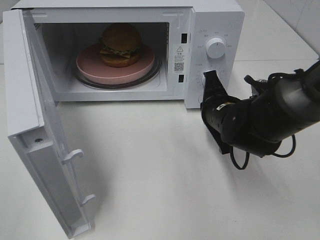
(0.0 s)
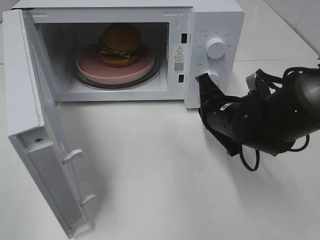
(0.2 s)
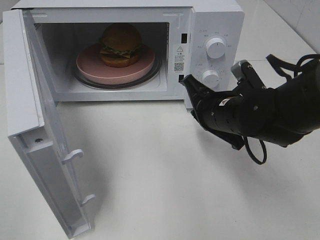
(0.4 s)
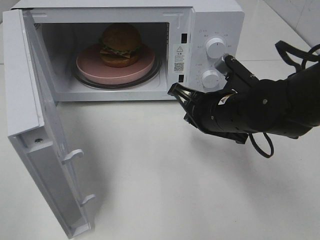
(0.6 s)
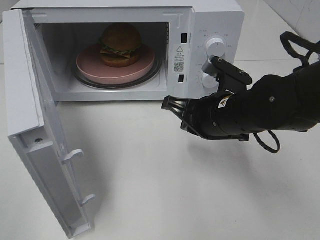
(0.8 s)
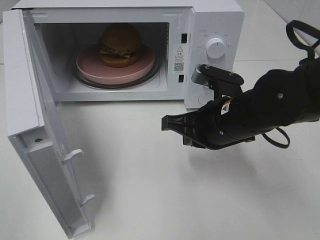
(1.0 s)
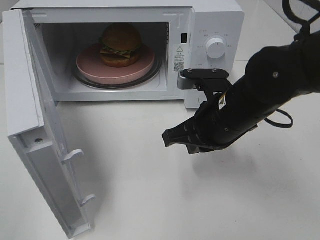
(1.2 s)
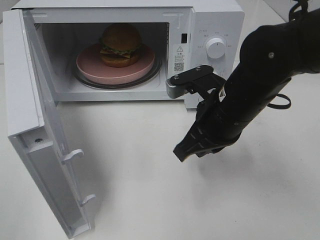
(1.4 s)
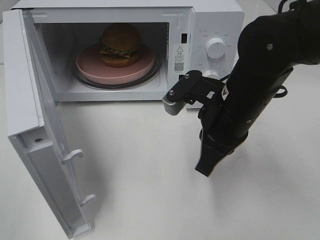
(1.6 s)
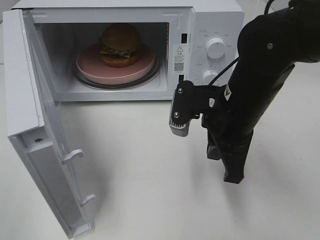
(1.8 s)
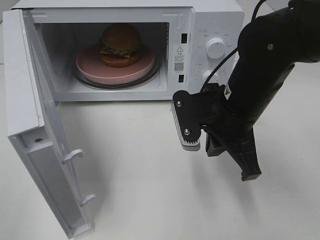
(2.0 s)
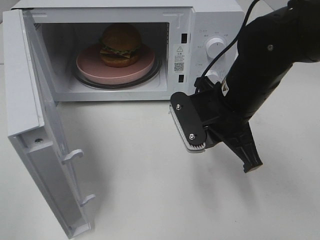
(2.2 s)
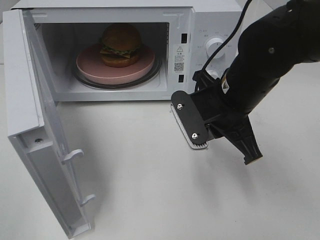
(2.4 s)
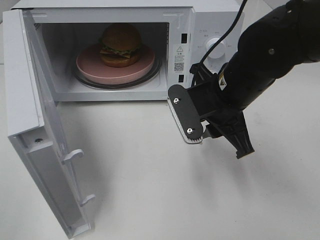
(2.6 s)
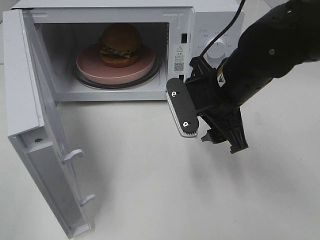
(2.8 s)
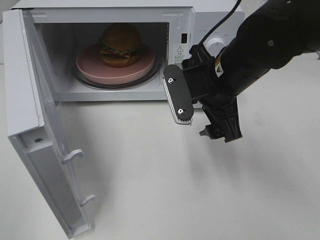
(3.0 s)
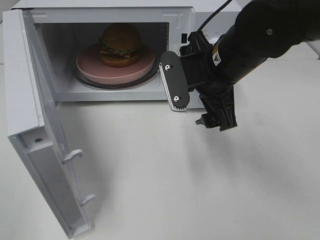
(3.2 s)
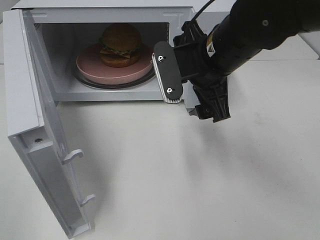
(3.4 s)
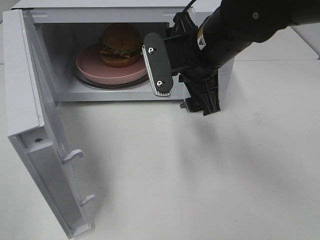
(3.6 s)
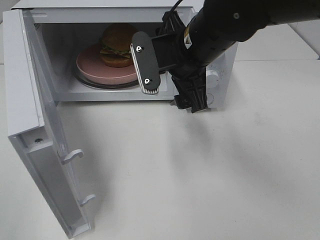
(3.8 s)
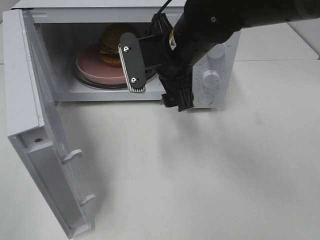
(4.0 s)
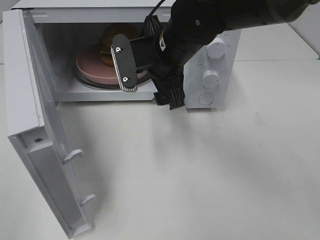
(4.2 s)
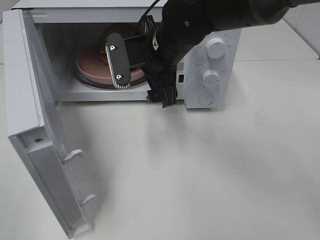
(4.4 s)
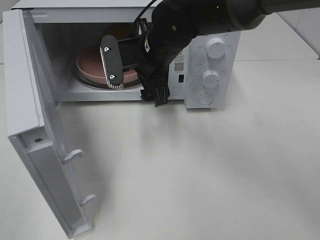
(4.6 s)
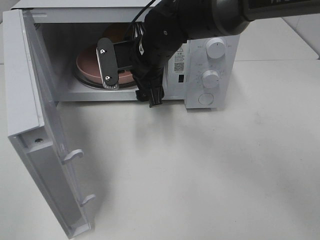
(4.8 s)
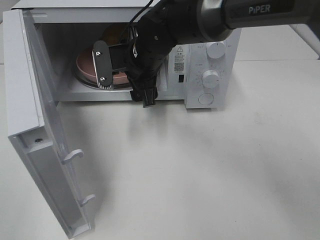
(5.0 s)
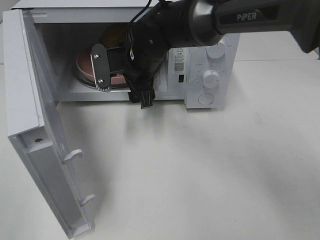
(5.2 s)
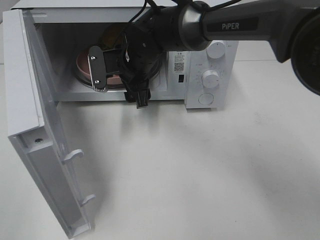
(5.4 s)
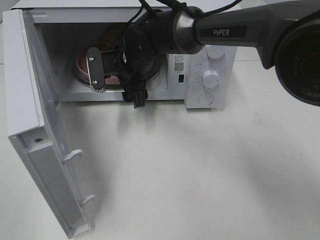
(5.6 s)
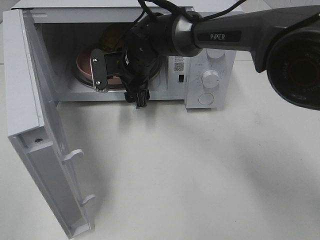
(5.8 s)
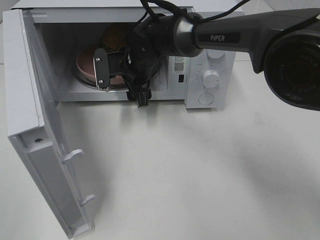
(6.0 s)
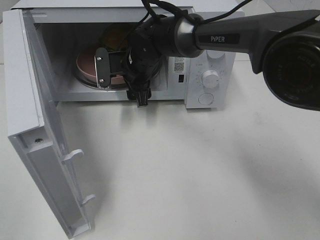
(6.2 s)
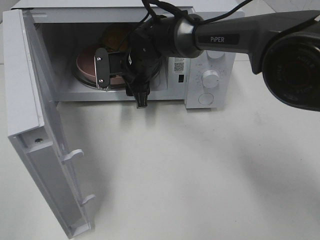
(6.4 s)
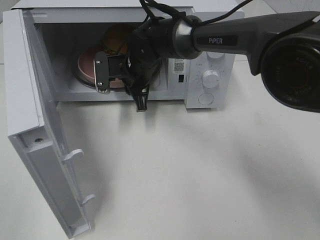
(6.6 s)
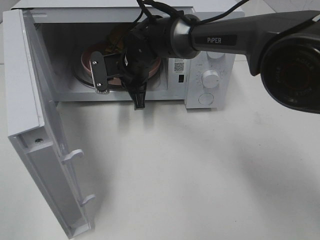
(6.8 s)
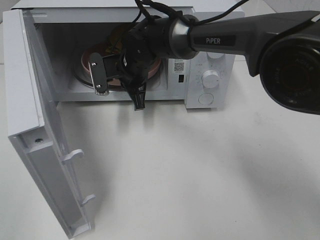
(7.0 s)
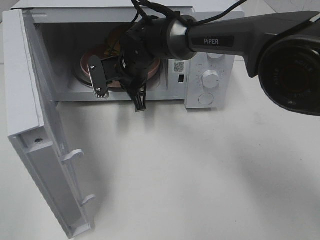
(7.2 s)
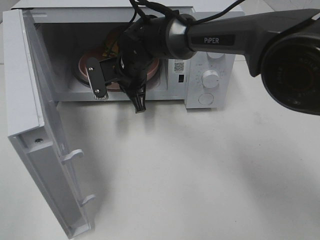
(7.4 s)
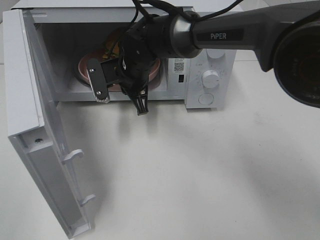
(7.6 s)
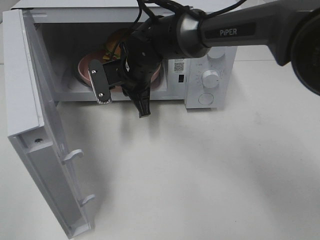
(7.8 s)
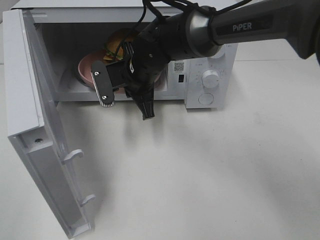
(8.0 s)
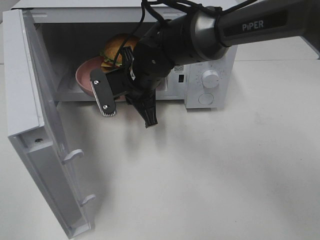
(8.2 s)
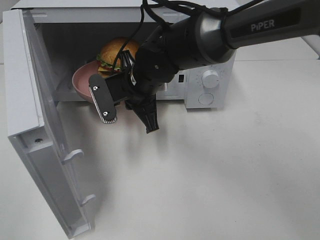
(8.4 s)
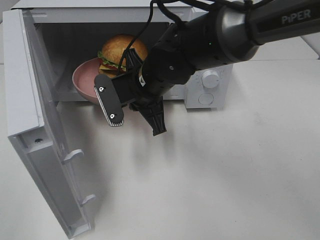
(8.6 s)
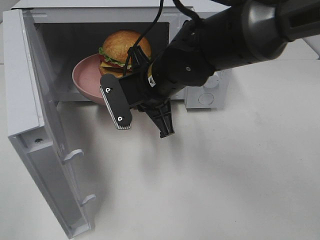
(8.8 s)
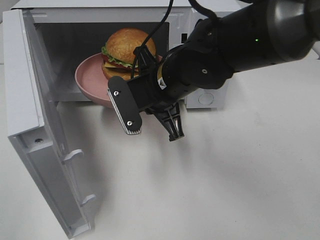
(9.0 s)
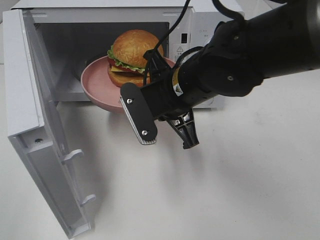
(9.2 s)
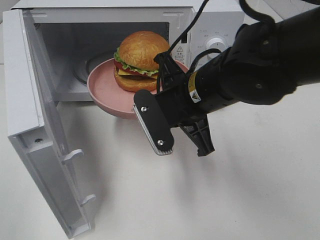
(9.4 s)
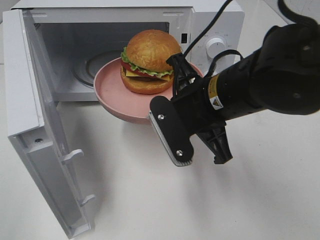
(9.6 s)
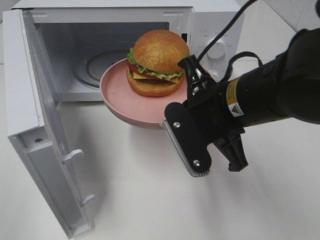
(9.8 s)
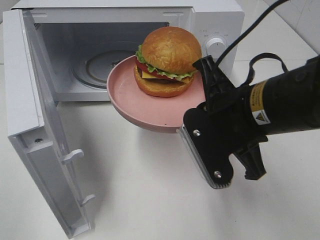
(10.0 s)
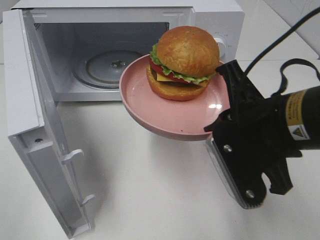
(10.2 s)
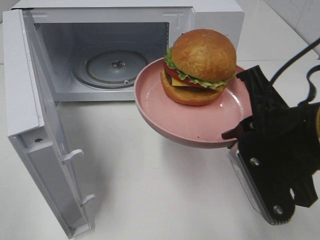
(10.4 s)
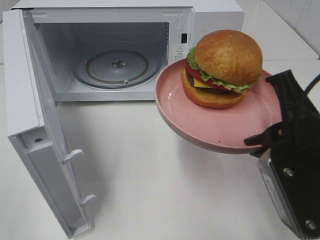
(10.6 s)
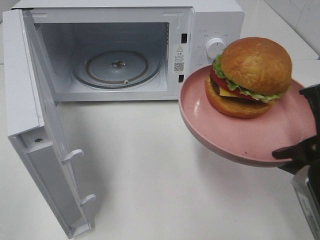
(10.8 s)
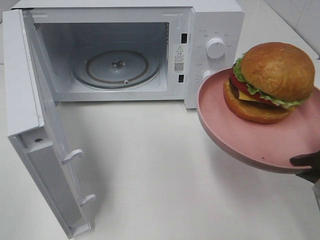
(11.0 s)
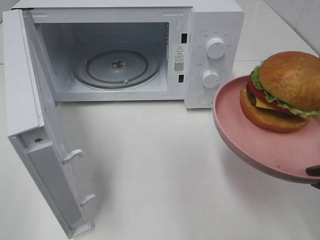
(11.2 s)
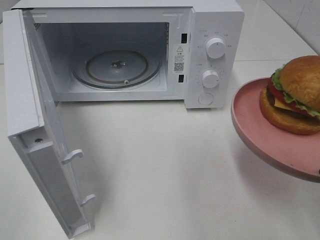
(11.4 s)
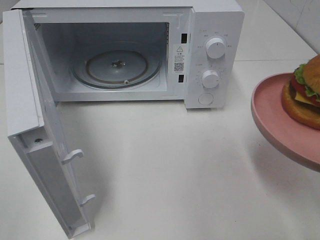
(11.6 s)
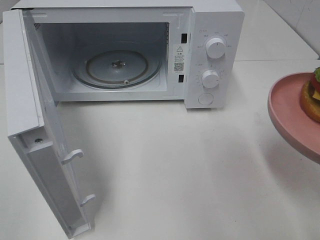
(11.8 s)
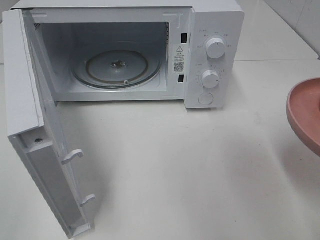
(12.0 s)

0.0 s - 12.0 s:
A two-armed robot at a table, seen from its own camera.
Task of the whole recording: Heat the burger.
Step, 0.0 s - 7.0 s: Right hand: grab the plate with the hamburger.
0.0 s - 1.6 s: The right gripper shifts roughly 10 cm upward and backward.
1.6 s - 3.0 s: The right gripper opens.
3.0 s - 4.4 s: The right gripper shifts some 10 cm to the left and forward.
4.4 s - 6.0 s: The right gripper heads forward and downward, covering about 10 cm.
6.0 s - 7.6 s: The right gripper closes.
7.6 s - 9.0 s: The right gripper heads backward and to the right, covering some 15 cm.
9.0 s - 10.4 s: The right gripper is displaced backward and to the right by roughly 20 cm.
10.4 s - 12.0 s: The right gripper moves to the right and backward, approximately 10 cm.

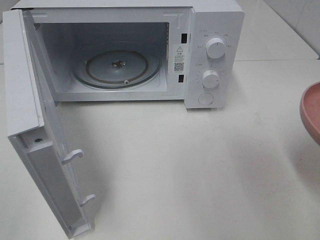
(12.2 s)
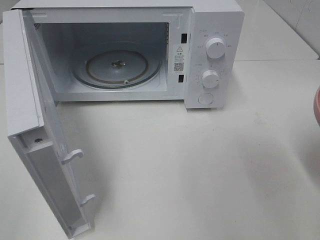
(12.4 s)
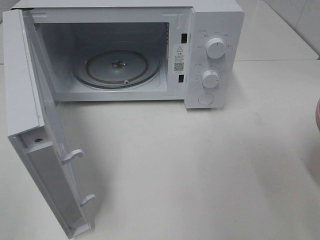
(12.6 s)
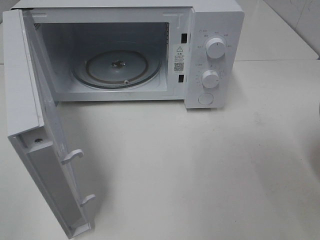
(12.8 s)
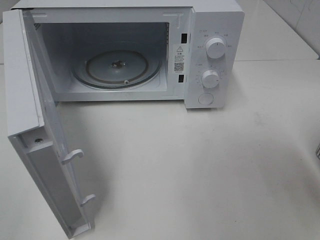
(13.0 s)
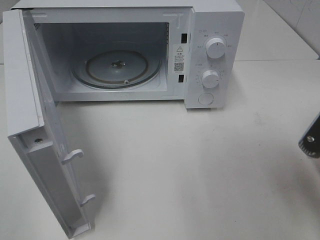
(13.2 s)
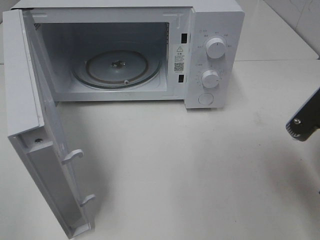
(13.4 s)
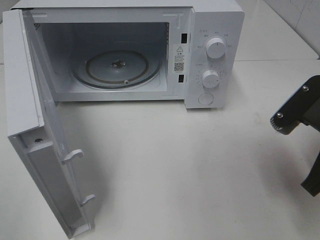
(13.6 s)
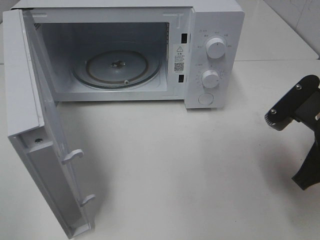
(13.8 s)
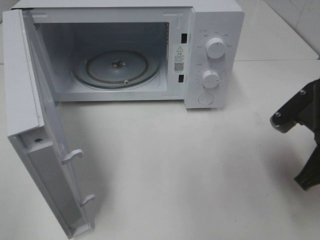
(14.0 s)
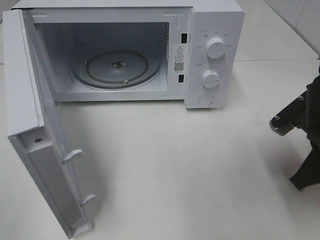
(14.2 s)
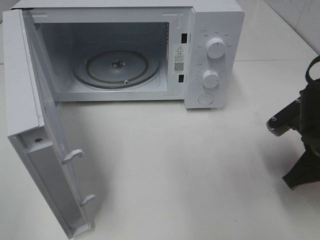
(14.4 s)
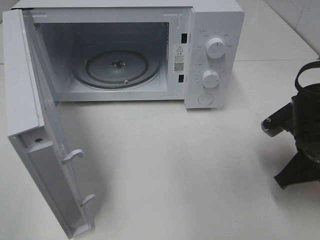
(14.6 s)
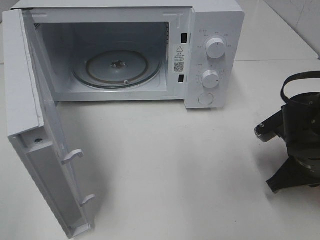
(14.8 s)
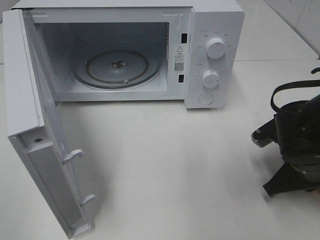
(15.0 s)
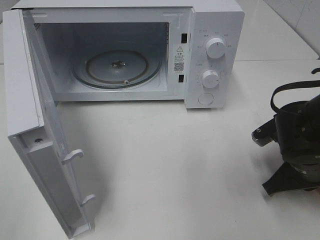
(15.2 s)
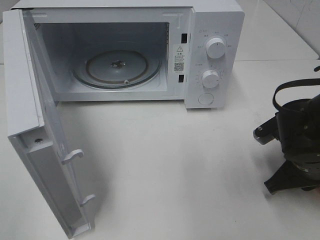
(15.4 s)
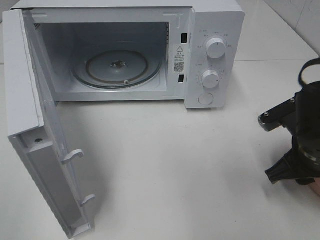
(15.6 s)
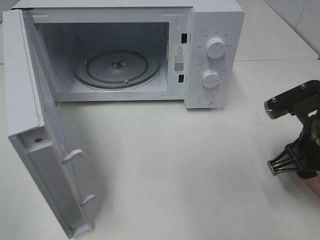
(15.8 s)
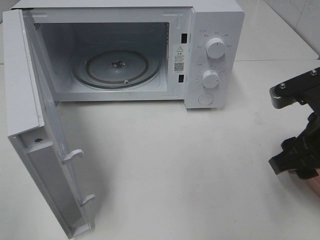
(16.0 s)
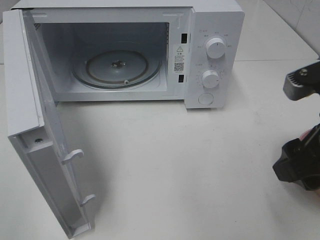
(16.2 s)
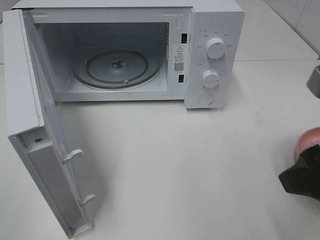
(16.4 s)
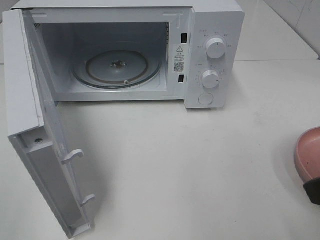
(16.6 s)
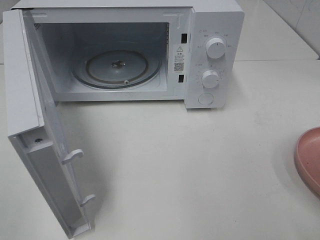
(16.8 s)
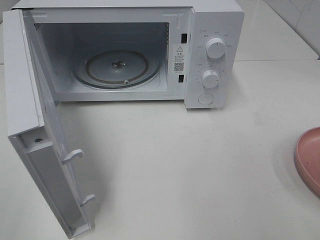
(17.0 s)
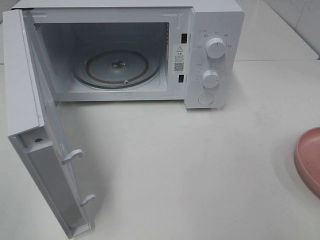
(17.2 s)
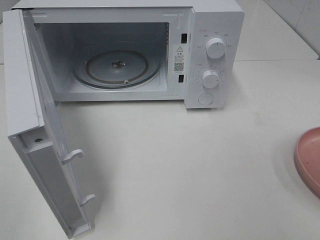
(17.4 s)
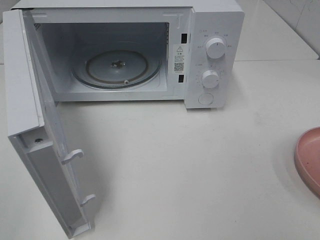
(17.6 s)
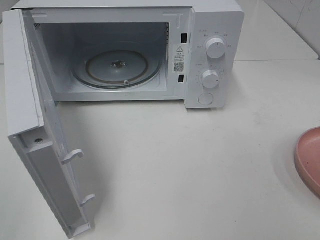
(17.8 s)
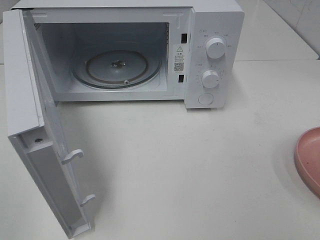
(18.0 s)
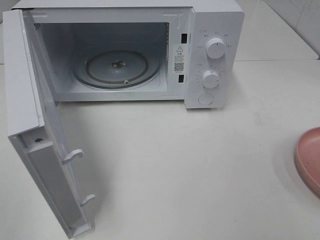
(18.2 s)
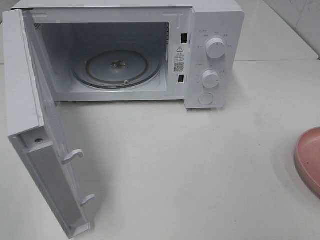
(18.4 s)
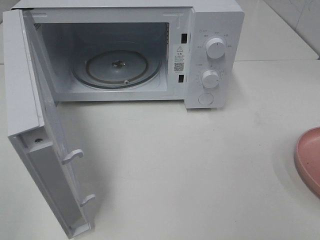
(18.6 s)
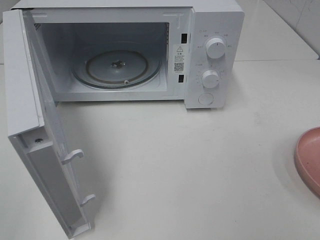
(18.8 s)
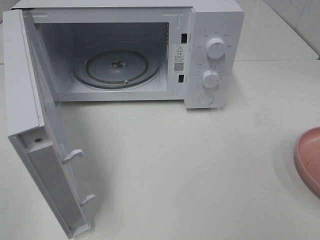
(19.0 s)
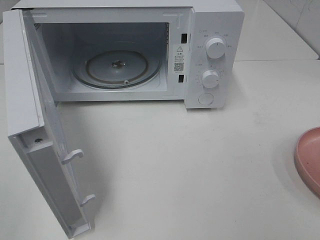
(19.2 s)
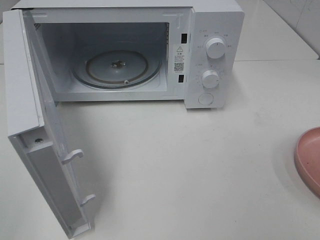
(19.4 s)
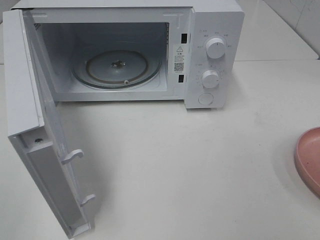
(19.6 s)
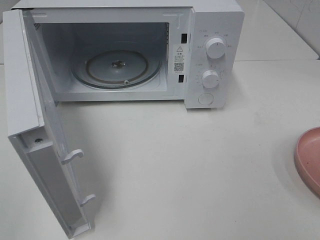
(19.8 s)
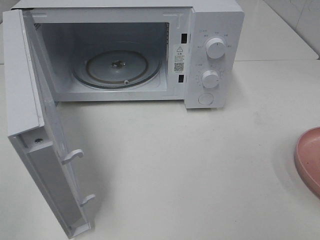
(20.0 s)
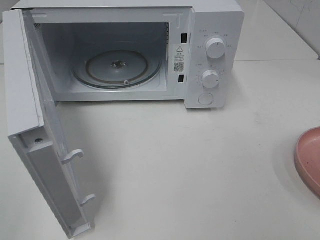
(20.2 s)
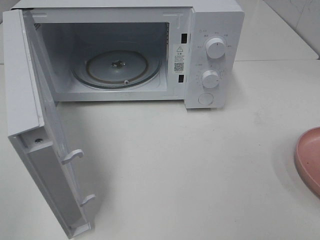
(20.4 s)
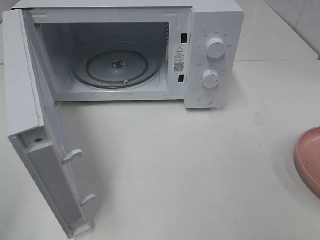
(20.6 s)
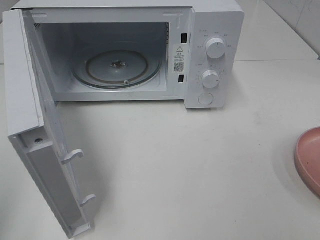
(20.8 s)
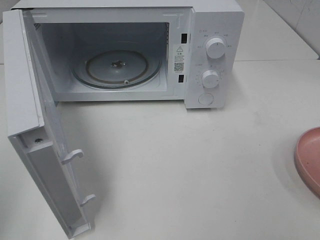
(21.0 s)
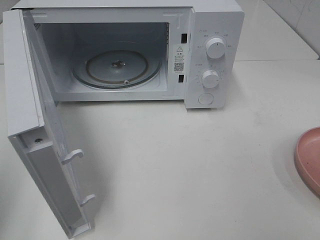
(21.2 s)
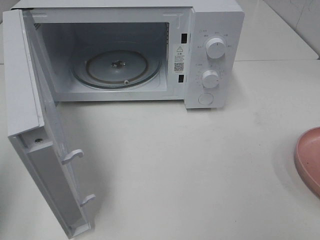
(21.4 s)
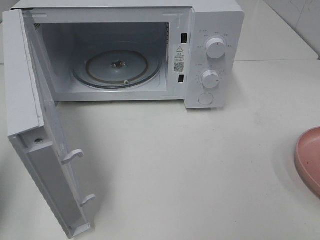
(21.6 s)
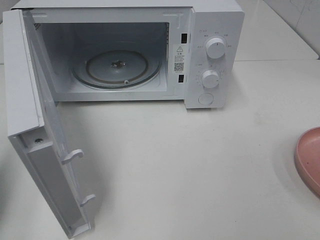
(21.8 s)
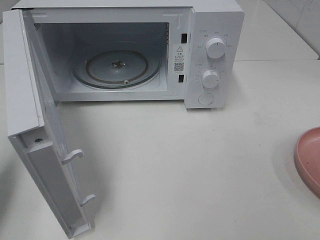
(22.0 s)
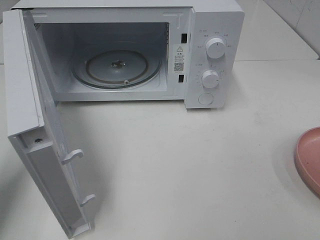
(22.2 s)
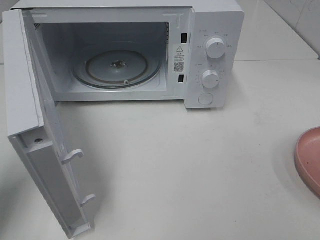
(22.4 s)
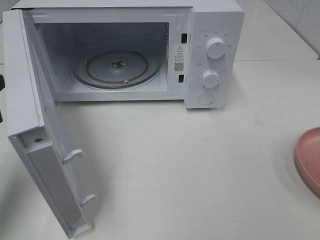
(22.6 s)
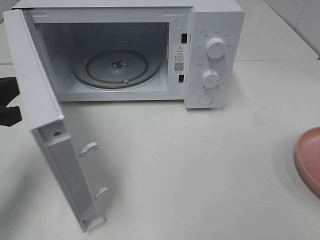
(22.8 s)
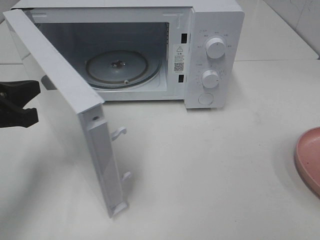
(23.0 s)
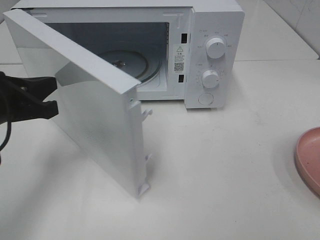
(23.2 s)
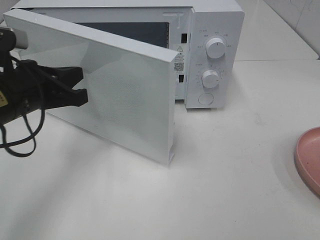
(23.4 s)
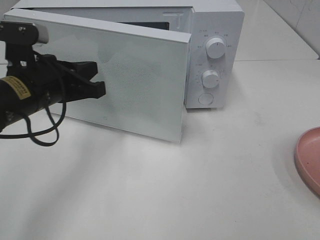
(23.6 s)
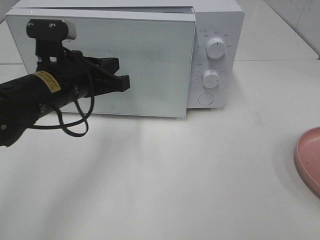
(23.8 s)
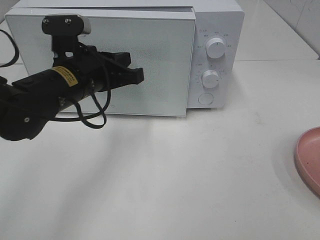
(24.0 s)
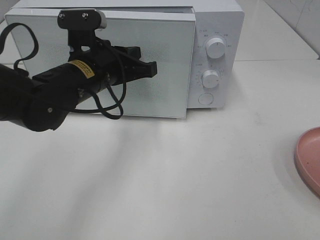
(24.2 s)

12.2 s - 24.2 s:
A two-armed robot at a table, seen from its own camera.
Task of the whole recording: Heat the burger.
Step, 12.2 s - 15.6 s: Right hand: place the plate on the table.
12.2 s - 13.8 s: The right gripper travels forward and to the left by about 10 cm.
13.8 s - 15.2 s: The right gripper shifts about 10 cm downward.
15.2 s - 16.6 s: The right gripper heads upward and backward, covering approximately 20 cm, and opens its fingers.
16.6 s - 18.2 s: The right gripper shifts about 10 cm backward and to the right.
18.2 s - 19.8 s: Both grippers stay put.
21.2 s - 22.6 s: The left gripper shifts approximately 15 cm forward and downward.
22.6 s - 24.2 s: The left gripper shifts approximately 20 cm to the right and forward.
